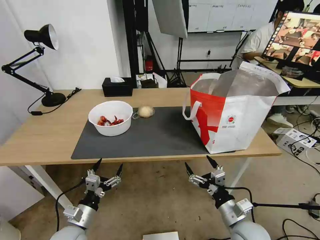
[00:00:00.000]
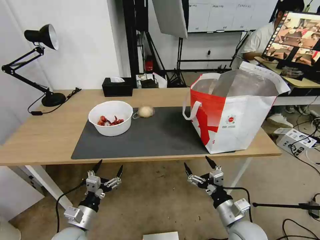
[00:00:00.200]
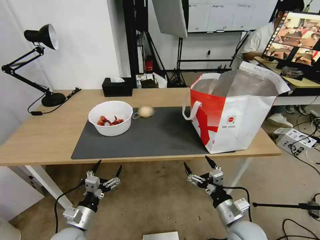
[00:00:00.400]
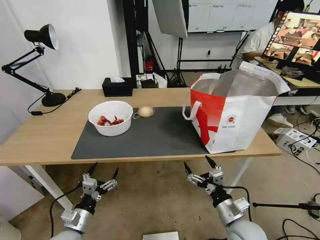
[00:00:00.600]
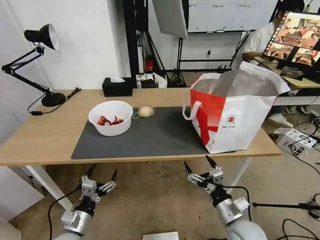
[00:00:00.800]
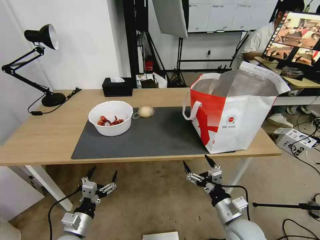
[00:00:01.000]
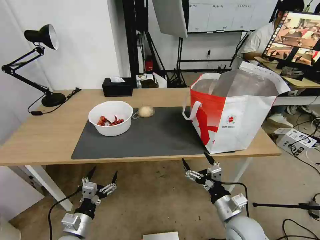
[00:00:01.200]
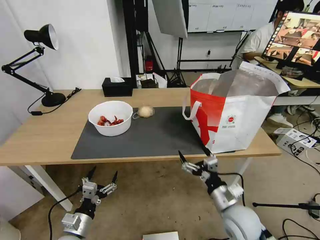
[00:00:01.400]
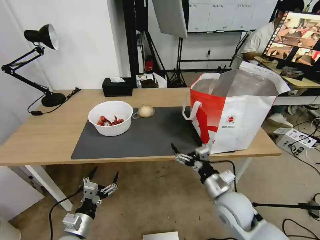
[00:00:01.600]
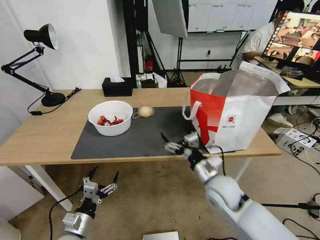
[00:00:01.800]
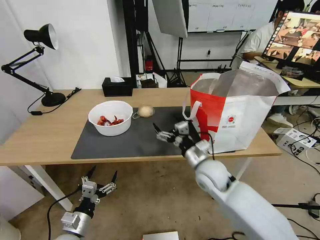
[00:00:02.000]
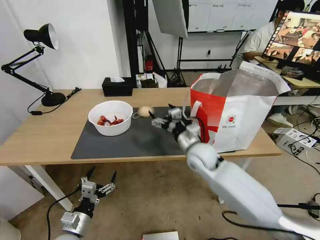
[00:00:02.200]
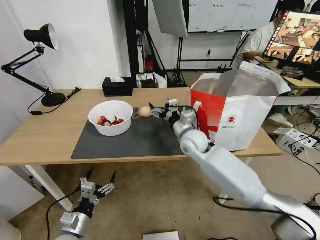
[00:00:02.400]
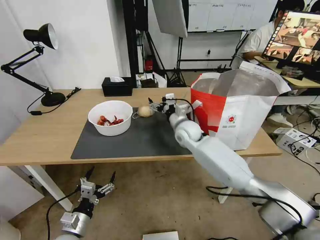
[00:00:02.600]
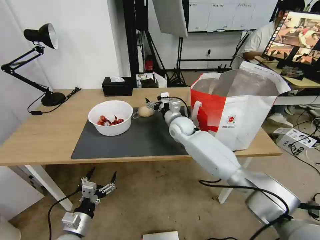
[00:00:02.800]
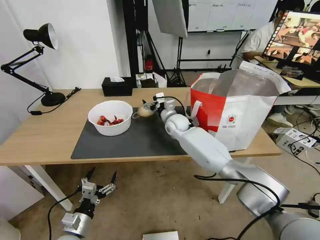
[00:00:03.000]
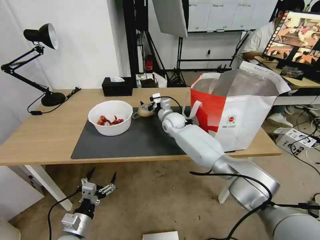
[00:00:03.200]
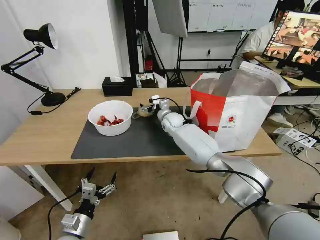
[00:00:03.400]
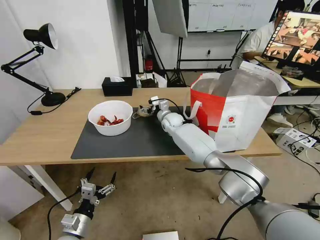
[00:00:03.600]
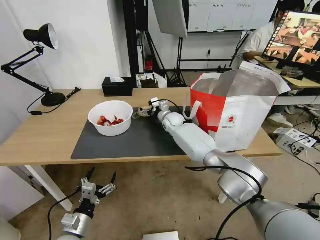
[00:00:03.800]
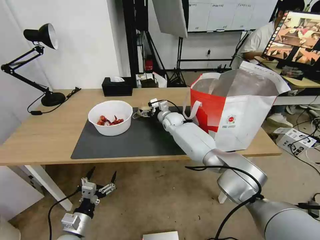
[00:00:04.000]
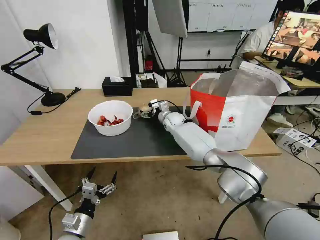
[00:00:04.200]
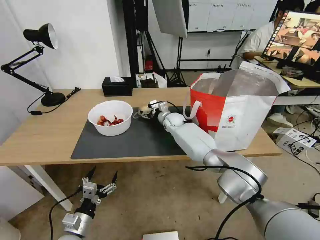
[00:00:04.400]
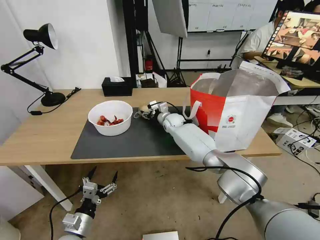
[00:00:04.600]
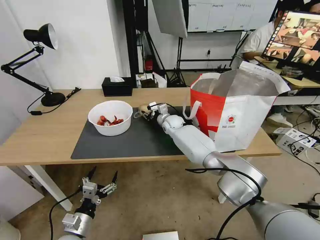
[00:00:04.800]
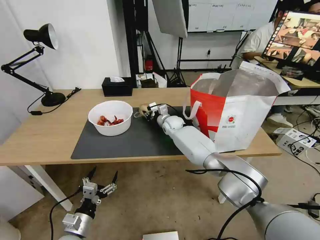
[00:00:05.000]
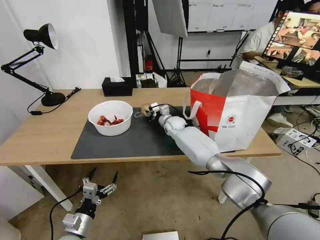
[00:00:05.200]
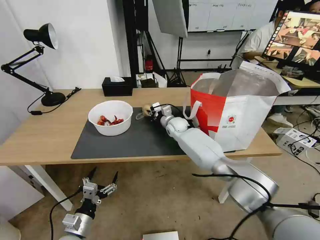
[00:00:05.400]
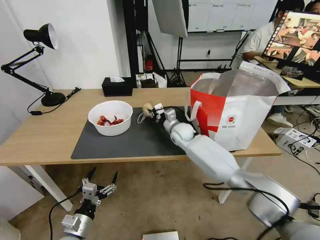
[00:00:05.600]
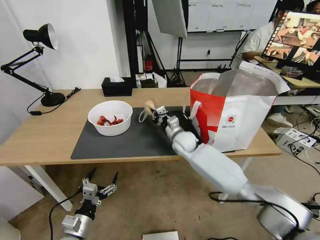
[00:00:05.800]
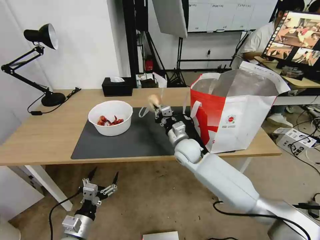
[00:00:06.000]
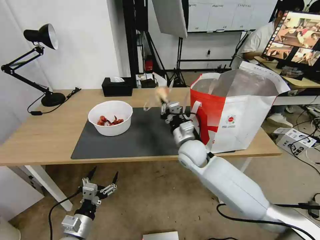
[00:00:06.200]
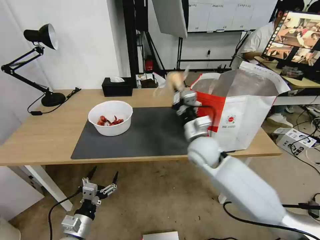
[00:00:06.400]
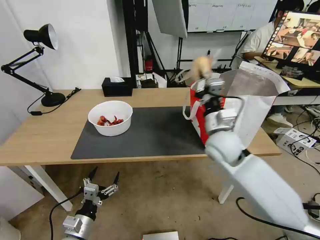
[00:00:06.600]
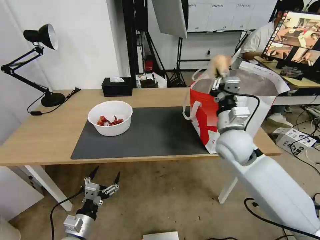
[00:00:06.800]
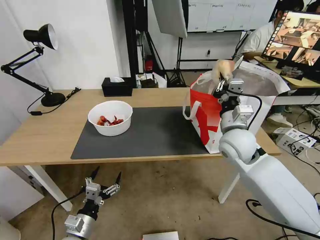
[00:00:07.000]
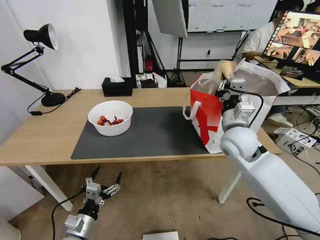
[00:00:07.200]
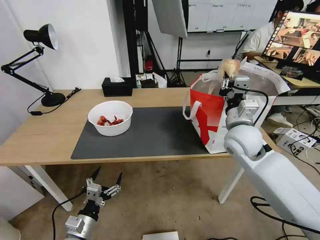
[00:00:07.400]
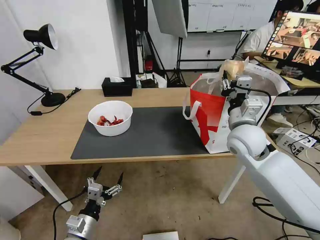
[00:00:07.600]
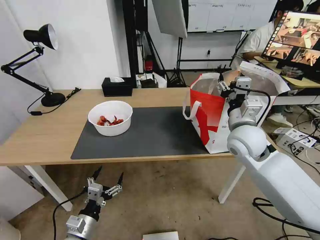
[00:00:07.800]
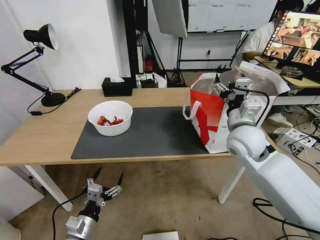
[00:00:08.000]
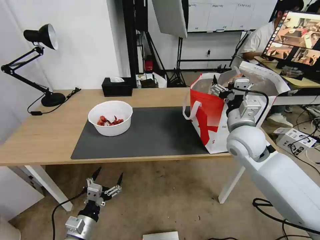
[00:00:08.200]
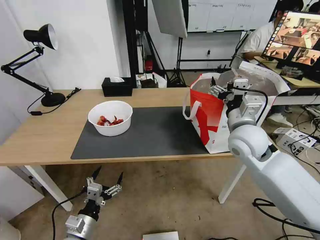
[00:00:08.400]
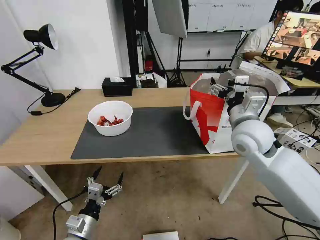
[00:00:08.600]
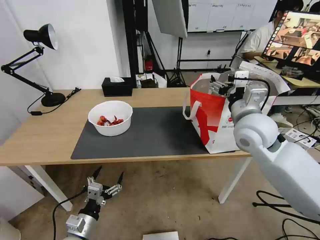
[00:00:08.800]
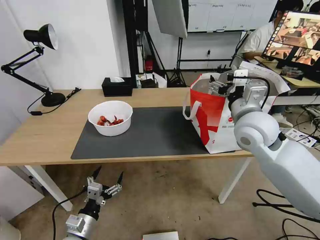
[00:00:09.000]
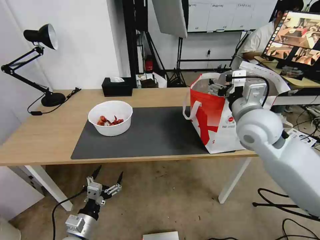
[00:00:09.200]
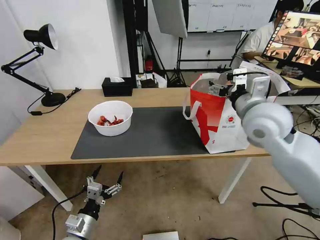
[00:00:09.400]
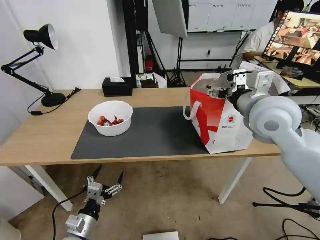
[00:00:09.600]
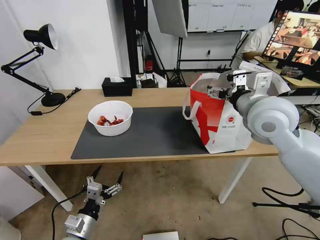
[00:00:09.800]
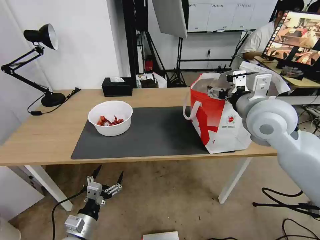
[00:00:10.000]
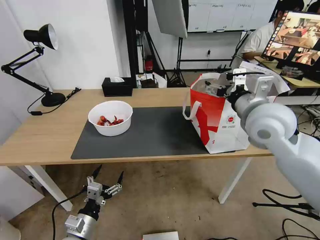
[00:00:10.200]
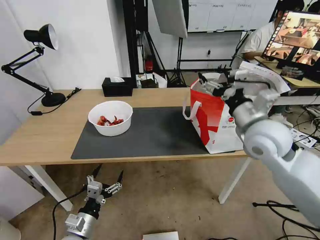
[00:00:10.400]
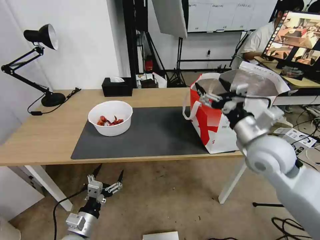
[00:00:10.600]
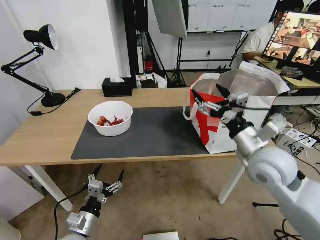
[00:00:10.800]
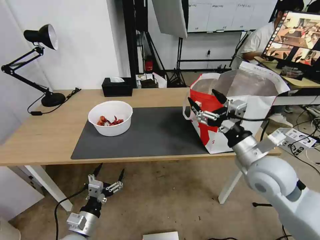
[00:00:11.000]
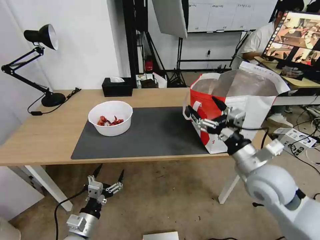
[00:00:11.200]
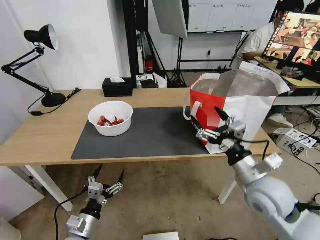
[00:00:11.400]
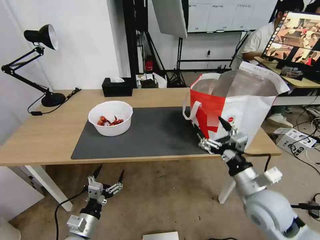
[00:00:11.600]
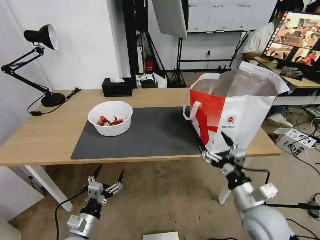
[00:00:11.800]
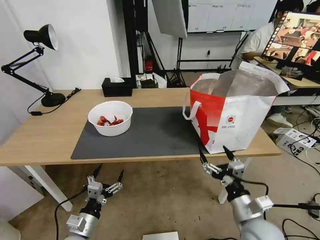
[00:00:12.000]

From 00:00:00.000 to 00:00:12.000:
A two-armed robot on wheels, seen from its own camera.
Task of the whole recording: Pick up the trash from the table and place it into the takeout bag.
From 00:00:00.000 to 00:00:01.600: The right gripper goes about 5 cm forward.
From 00:00:01.600 to 00:00:03.000: The right gripper is displaced forward and to the left by roughly 35 cm.
From 00:00:03.000 to 00:00:04.400: The right gripper shifts some 5 cm forward.
From 00:00:04.400 to 00:00:06.000: The right gripper goes some 15 cm backward, and closes up.
From 00:00:06.000 to 00:00:07.600: The right gripper is displaced to the right, upward and backward by some 20 cm, and opens.
From 00:00:07.600 to 00:00:09.000: The right gripper shifts some 5 cm upward, and opens up.
From 00:00:10.400 to 00:00:12.000: The right gripper heads downward and backward, covering about 25 cm.

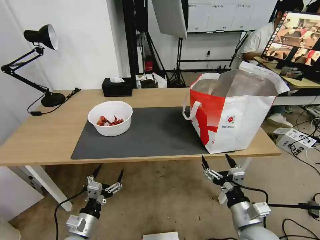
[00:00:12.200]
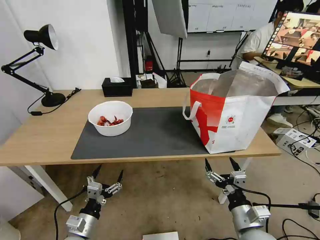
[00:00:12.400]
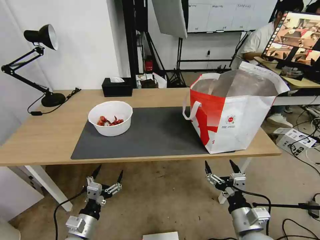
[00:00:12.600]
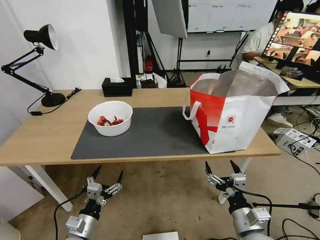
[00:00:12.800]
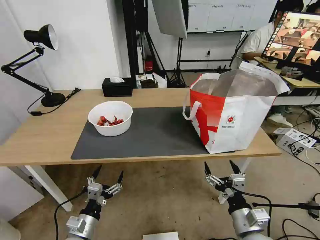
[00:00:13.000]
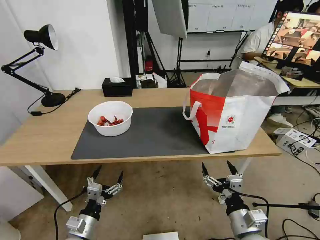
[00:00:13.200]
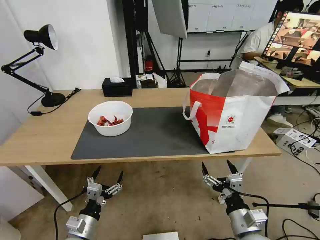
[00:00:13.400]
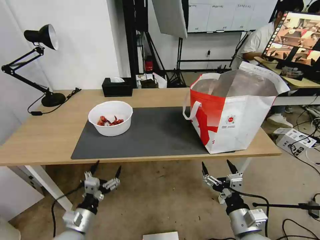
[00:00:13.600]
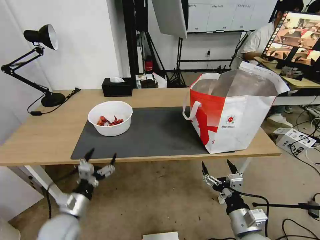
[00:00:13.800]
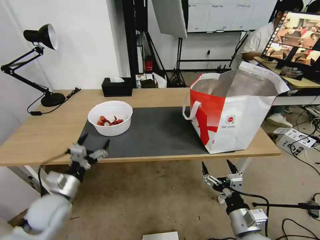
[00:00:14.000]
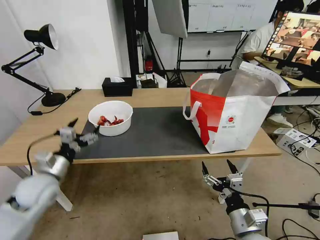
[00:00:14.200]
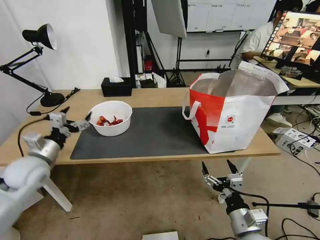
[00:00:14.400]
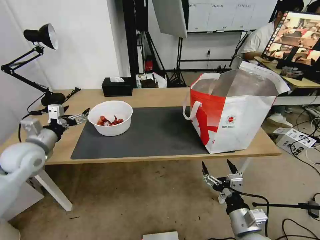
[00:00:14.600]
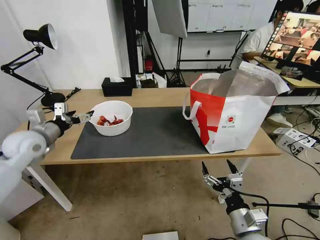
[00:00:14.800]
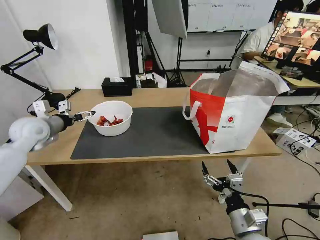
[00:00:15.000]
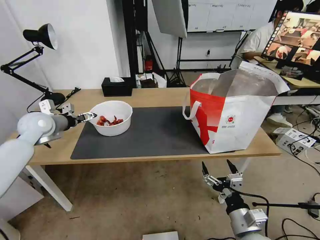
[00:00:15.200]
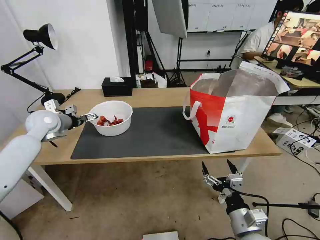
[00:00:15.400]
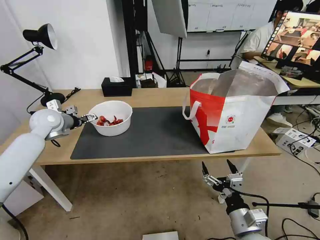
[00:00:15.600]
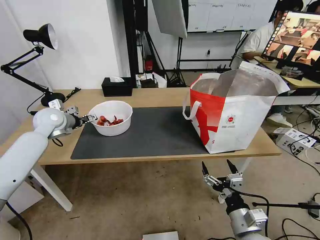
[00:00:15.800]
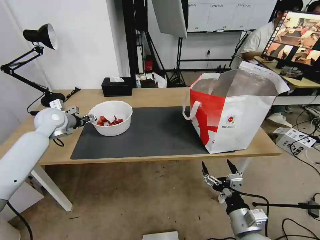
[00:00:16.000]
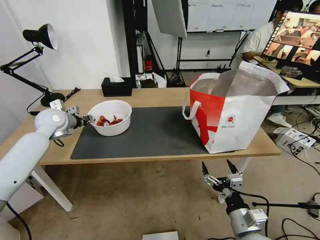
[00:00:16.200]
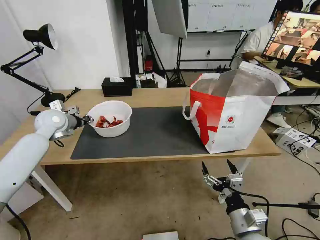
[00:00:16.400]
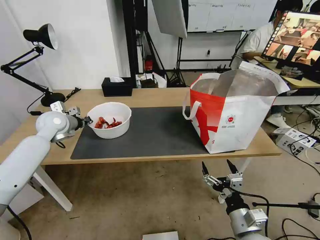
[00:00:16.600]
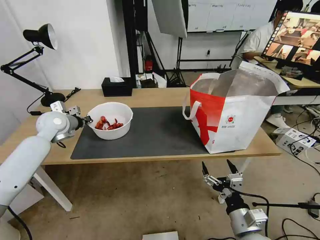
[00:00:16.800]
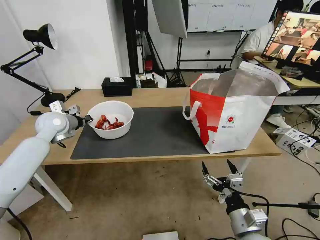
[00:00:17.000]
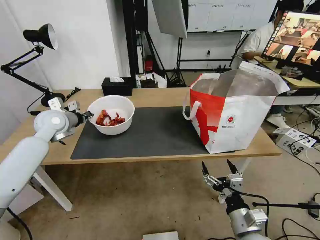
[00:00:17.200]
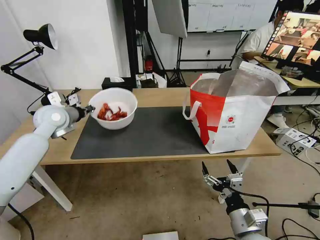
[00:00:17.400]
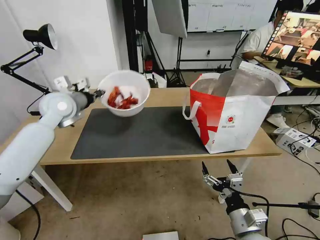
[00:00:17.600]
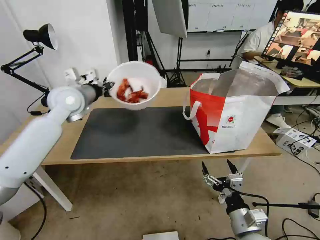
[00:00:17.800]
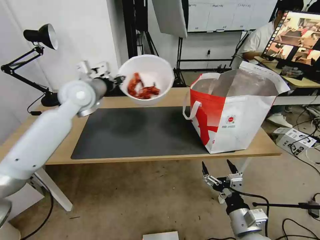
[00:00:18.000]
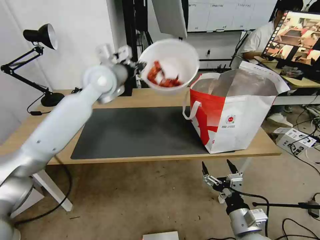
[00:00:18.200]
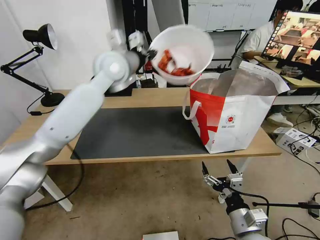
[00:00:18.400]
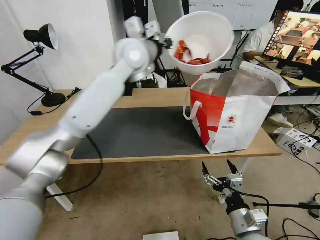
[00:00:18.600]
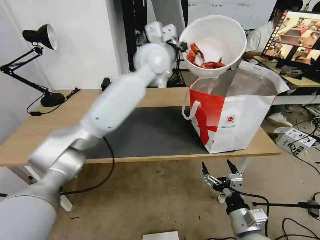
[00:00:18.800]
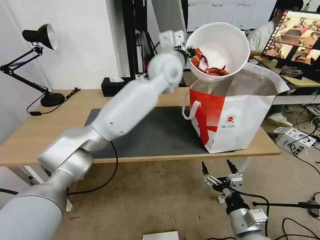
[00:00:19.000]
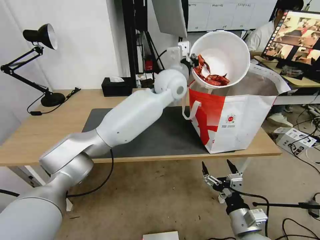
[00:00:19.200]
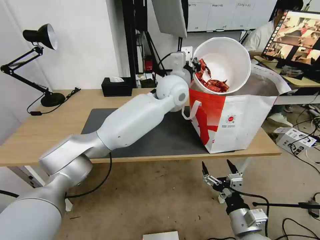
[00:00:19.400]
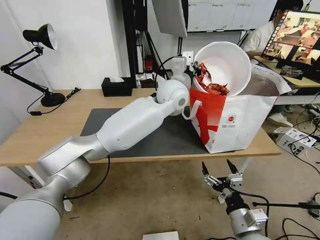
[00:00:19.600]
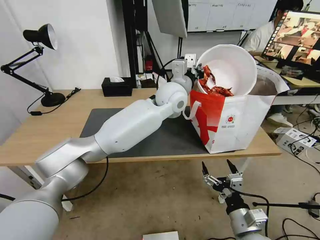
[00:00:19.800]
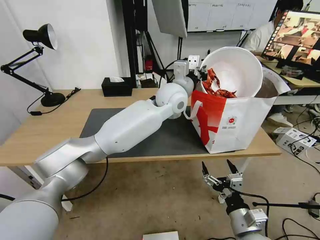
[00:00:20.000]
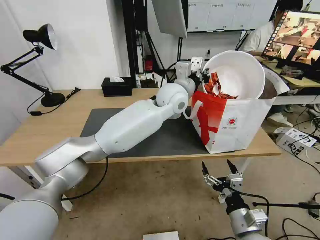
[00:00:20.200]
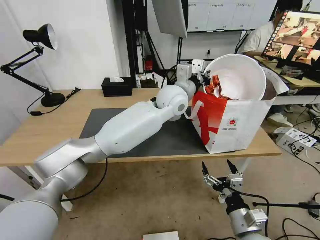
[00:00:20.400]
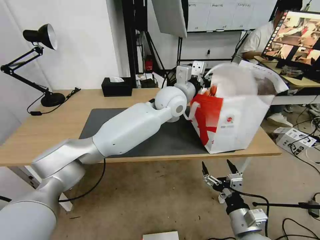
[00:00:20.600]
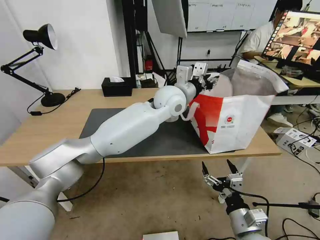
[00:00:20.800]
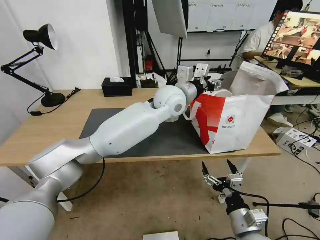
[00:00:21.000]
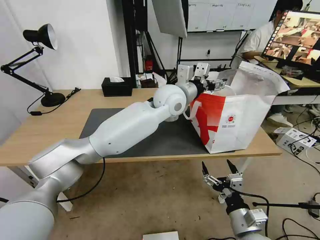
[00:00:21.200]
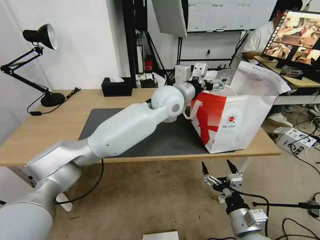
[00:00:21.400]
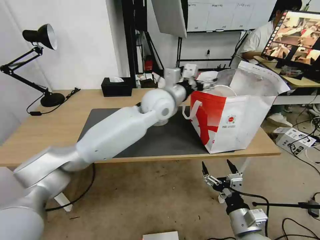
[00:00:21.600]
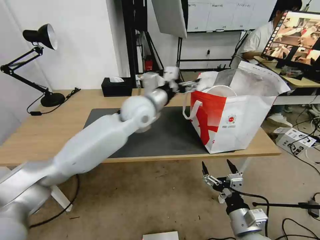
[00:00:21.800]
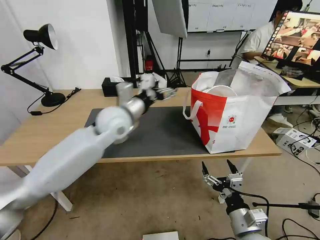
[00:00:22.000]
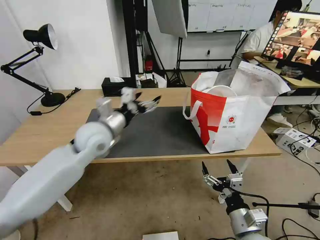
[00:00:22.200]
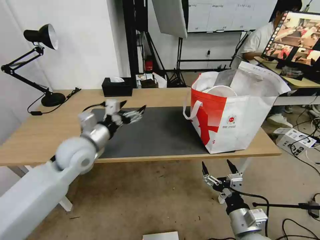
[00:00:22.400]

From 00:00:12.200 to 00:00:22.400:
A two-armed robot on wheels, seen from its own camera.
Task of the whole recording: Pick up the trash from the table and place it into the takeout bag.
From 00:00:12.200 to 00:00:13.600: The grippers make only small movements.
From 00:00:13.600 to 00:00:15.200: The left gripper moves forward, upward and to the left, some 40 cm.
From 00:00:15.200 to 00:00:16.600: The left gripper closes.
From 00:00:16.600 to 00:00:18.000: The left gripper goes some 20 cm to the right and upward.
From 00:00:18.000 to 00:00:19.400: The left gripper travels to the right by approximately 25 cm.
From 00:00:19.400 to 00:00:21.000: The left gripper opens up.
From 00:00:21.000 to 00:00:22.400: The left gripper moves to the left and backward, approximately 30 cm.
